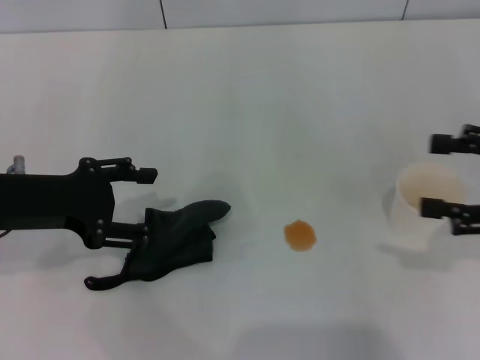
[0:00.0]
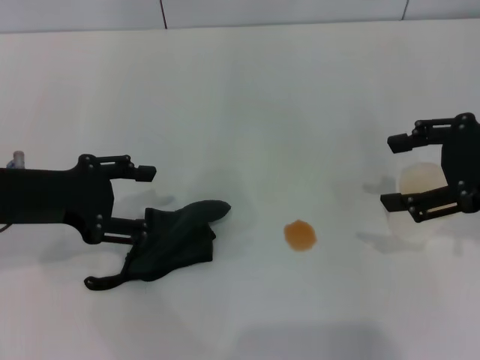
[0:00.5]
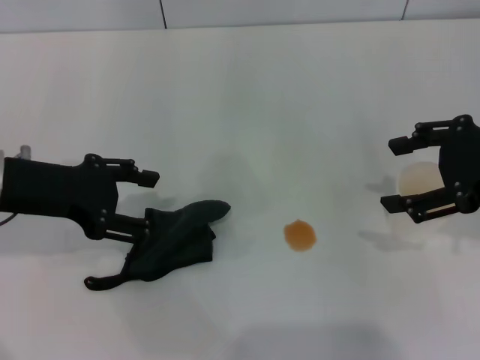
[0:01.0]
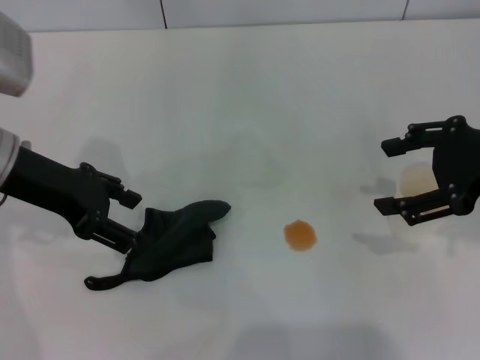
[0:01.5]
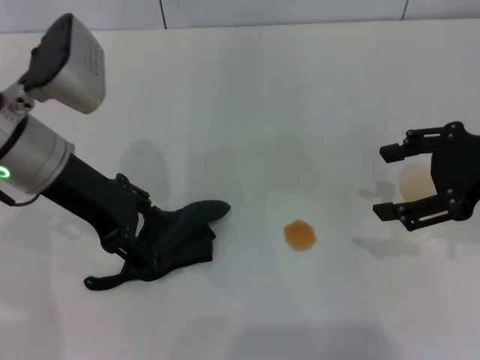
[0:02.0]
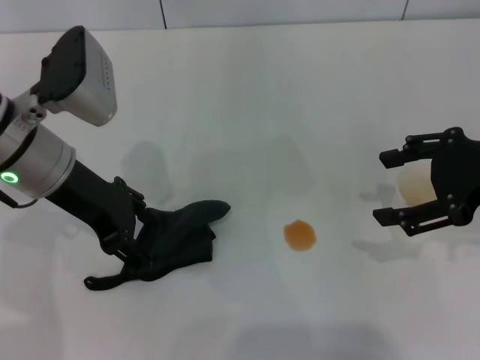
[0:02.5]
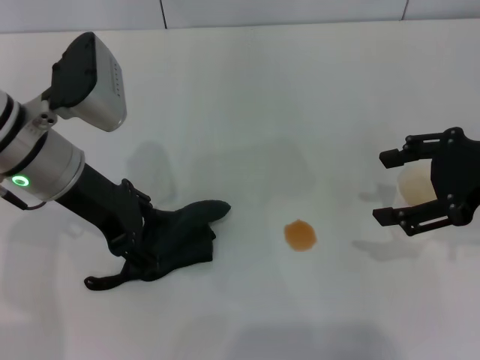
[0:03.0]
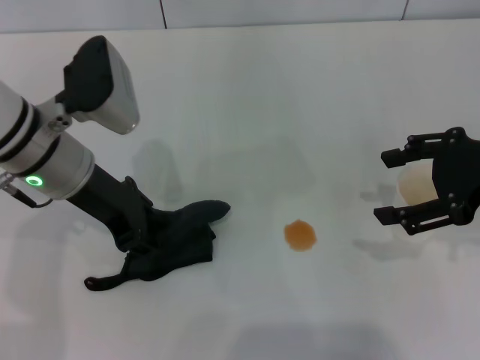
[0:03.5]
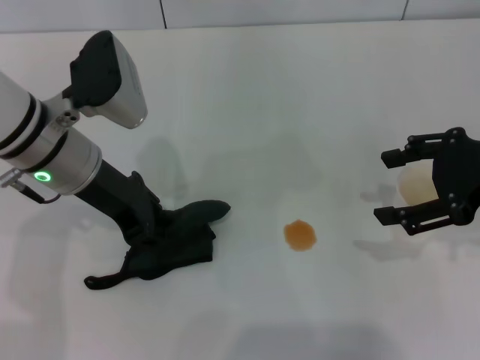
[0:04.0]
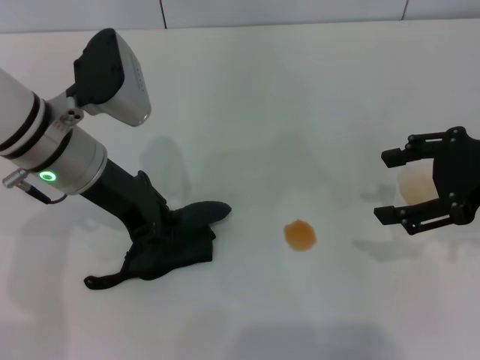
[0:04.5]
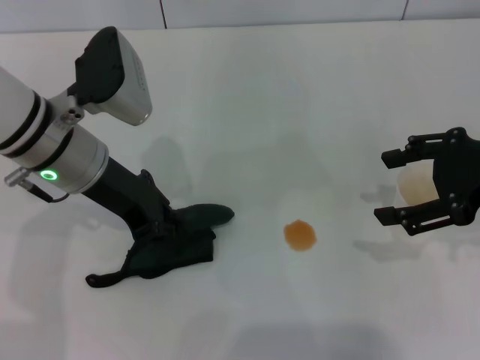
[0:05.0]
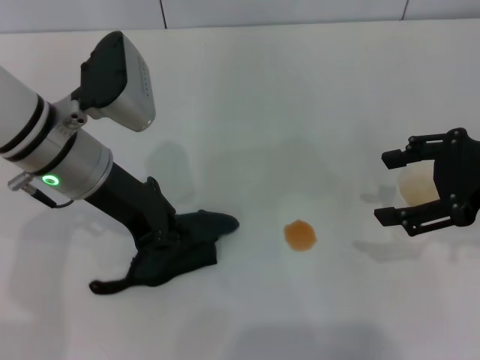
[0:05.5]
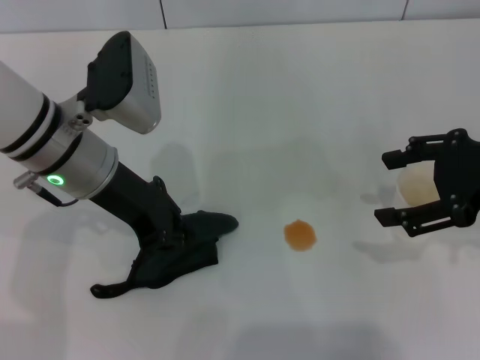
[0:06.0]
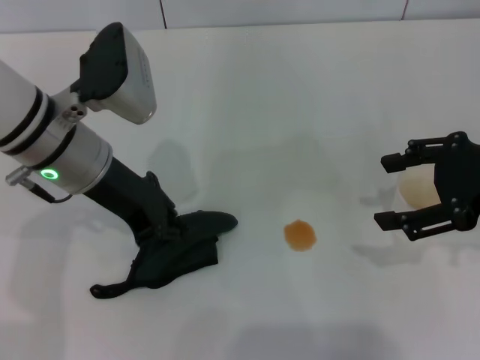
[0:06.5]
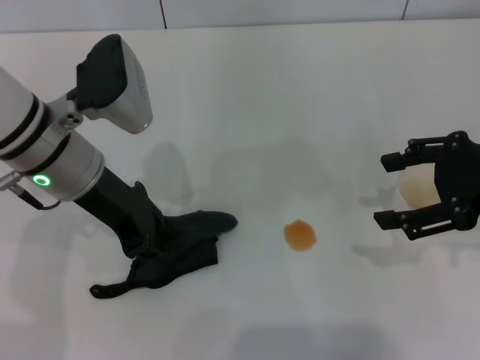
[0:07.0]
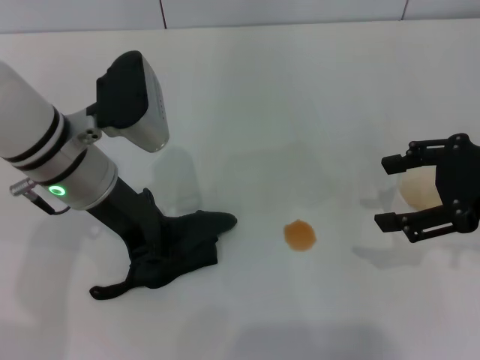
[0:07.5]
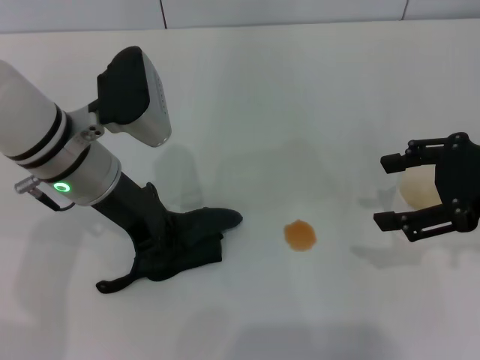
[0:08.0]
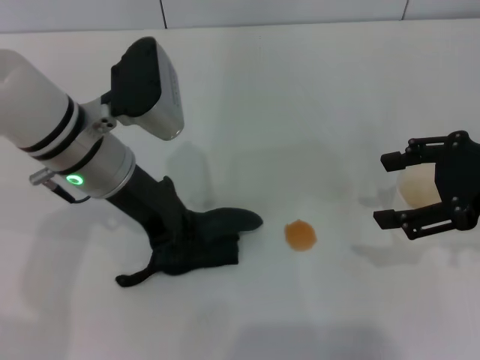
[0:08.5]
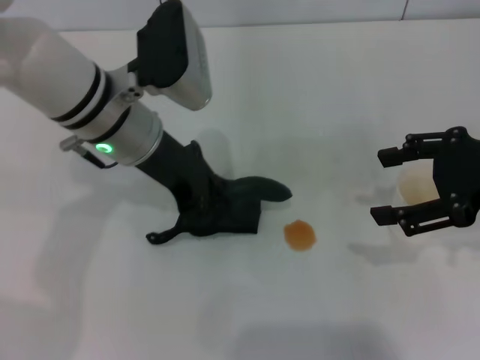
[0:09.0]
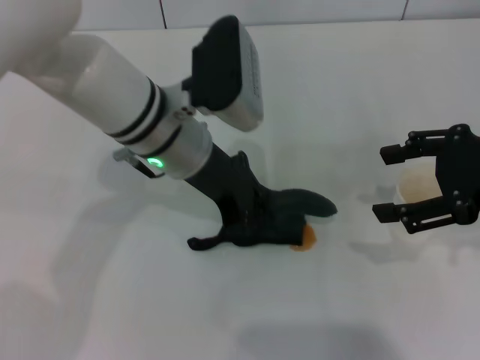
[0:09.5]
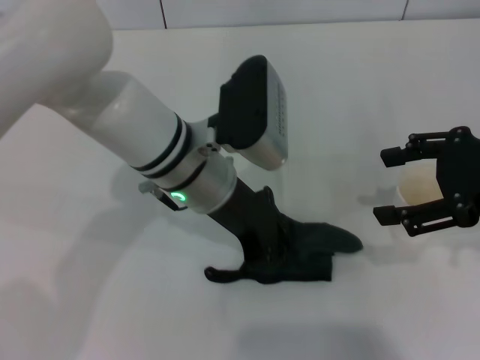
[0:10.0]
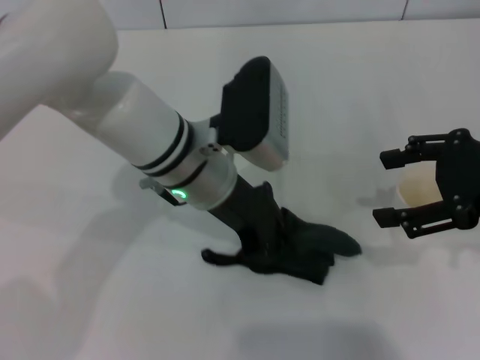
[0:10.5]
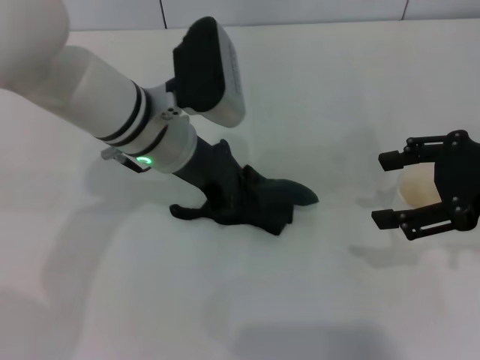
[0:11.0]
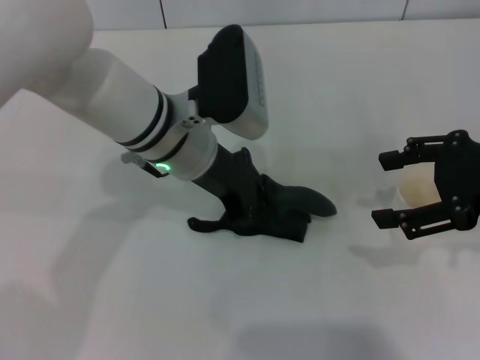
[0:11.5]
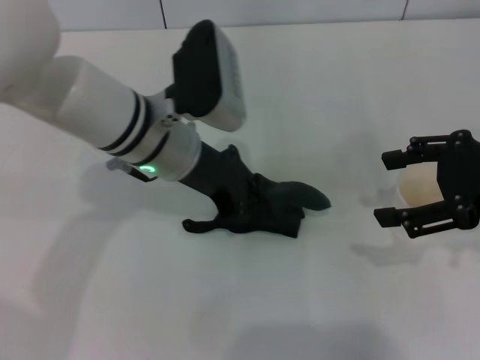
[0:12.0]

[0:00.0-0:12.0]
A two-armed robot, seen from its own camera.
Step, 0:00.0 to 0:05.0: Grasp the rag with the left gripper.
Step, 0:05.5 to 0:10.5: Wipe the stains off the table with the left gripper.
0:00.0 to 0:02.0: The left gripper shifts approximately 10 cm to the right and forward, while the right gripper shifts some 5 cm to the left.
0:02.0 to 0:04.0: The left gripper closes.
0:04.0 to 0:06.0: The left gripper closes its fingers.
0:06.0 to 0:08.0: There are only small adjustments of the grippers.
0:08.0 to 0:10.0: The left gripper goes approximately 10 cm to the right.

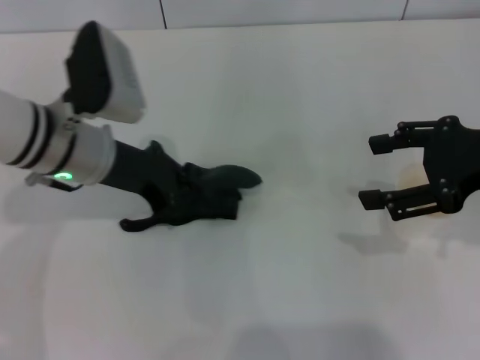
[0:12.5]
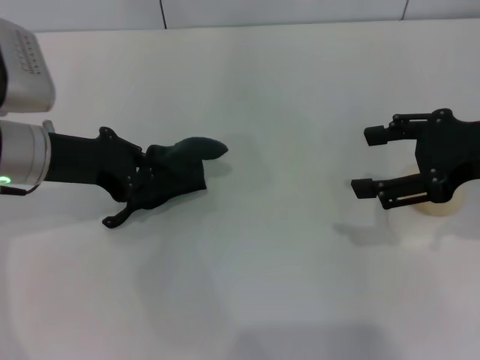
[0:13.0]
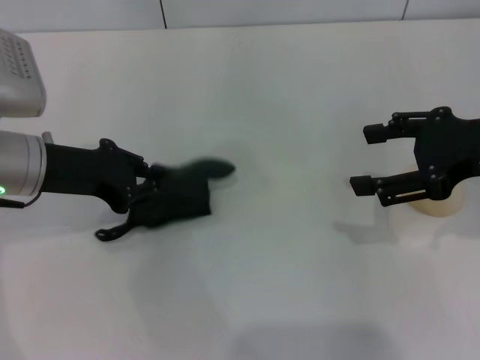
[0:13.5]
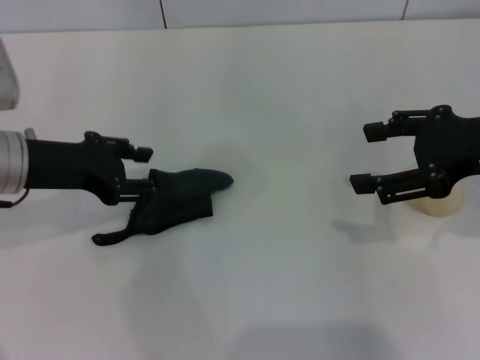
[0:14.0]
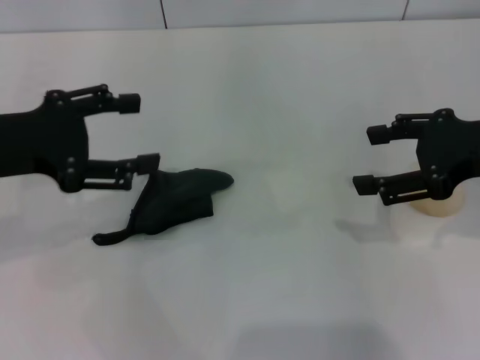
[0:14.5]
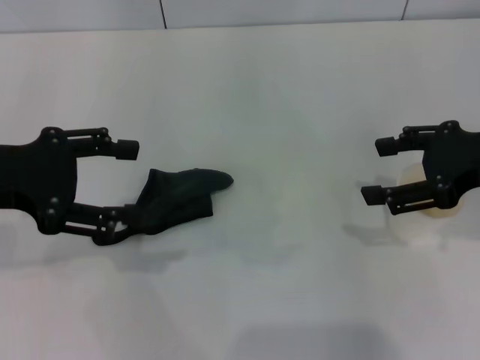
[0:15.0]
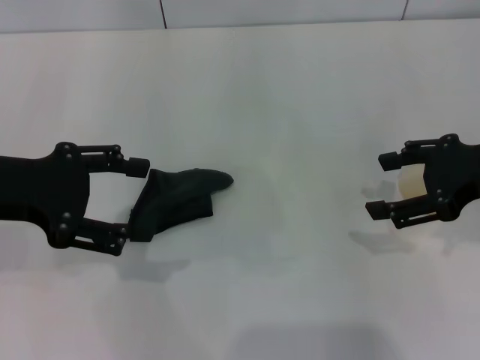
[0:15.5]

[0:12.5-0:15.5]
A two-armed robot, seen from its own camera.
0:12.5 to 0:14.0: The left gripper is displaced to the left by about 5 cm.
0:14.0 to 0:15.5: The left gripper moves approximately 5 cm, and opens its fingers.

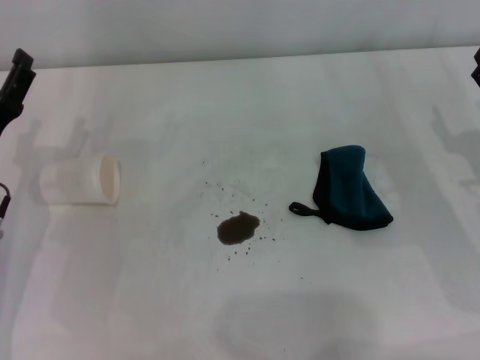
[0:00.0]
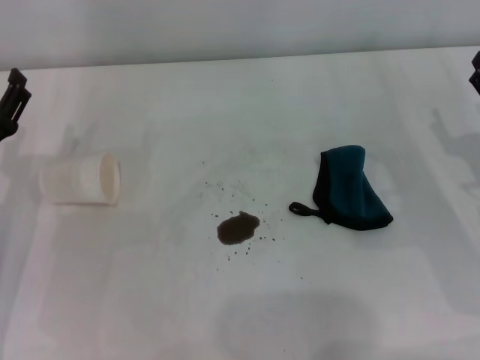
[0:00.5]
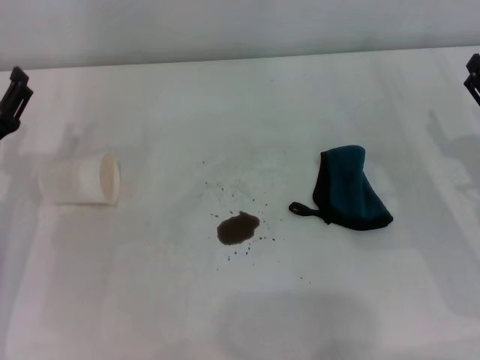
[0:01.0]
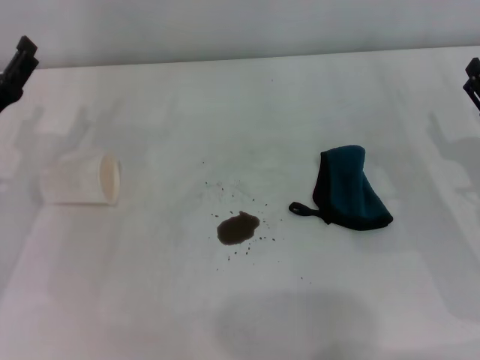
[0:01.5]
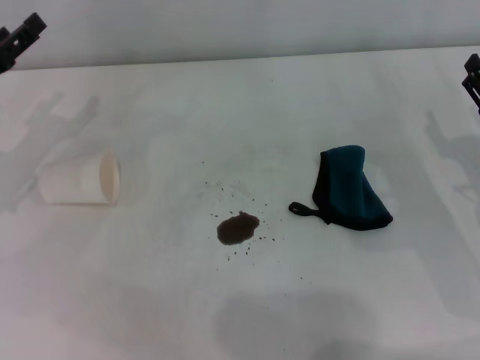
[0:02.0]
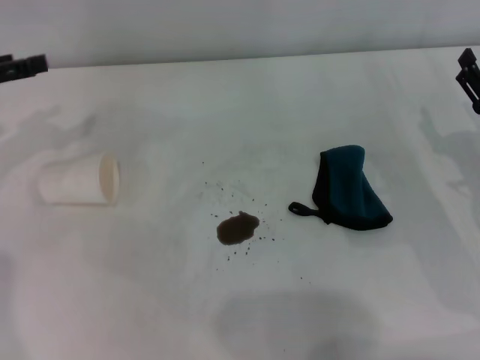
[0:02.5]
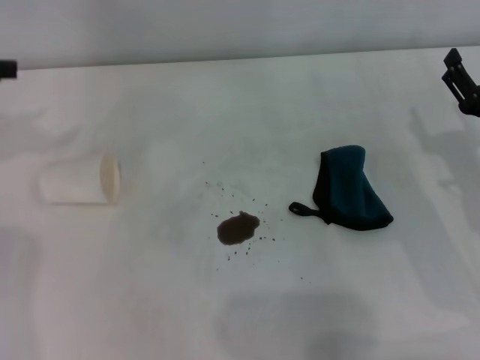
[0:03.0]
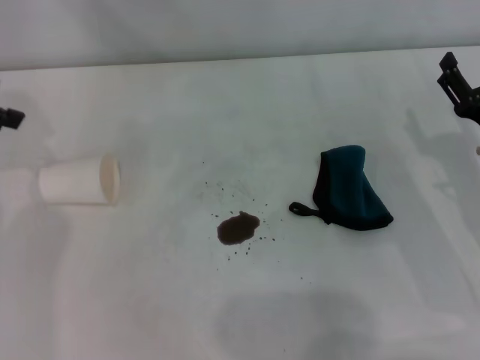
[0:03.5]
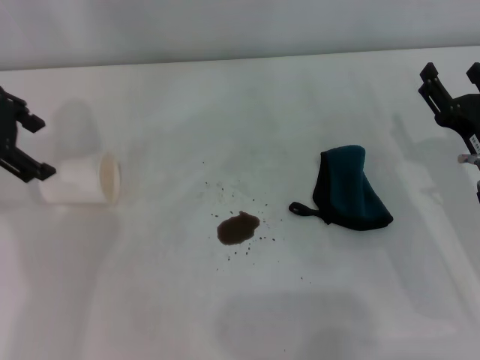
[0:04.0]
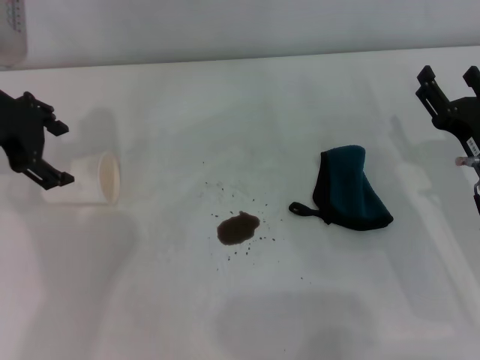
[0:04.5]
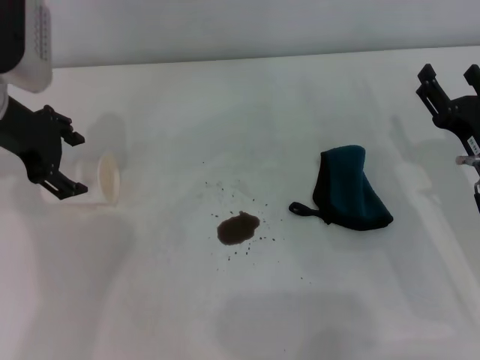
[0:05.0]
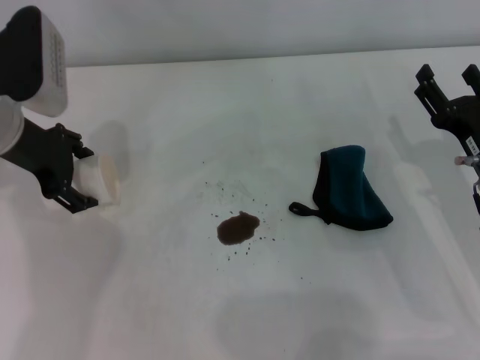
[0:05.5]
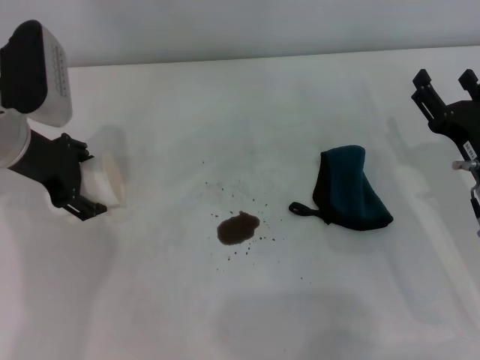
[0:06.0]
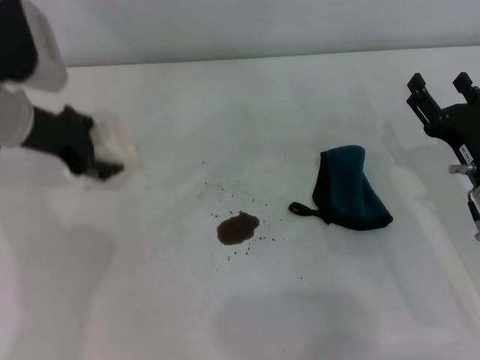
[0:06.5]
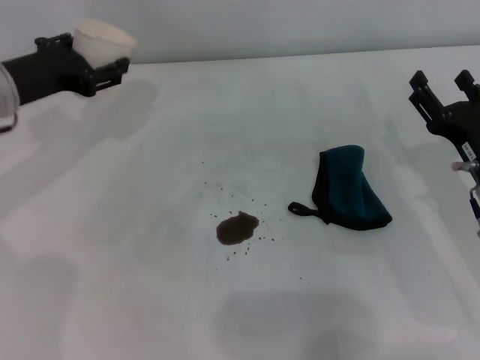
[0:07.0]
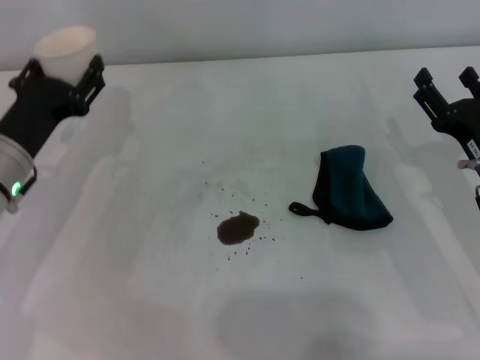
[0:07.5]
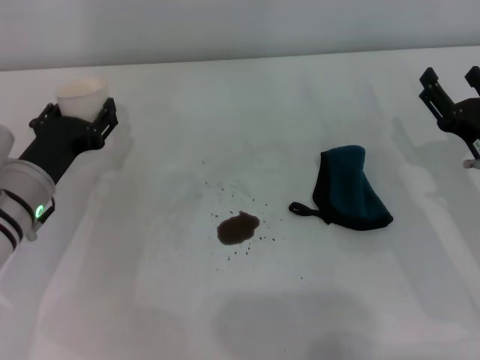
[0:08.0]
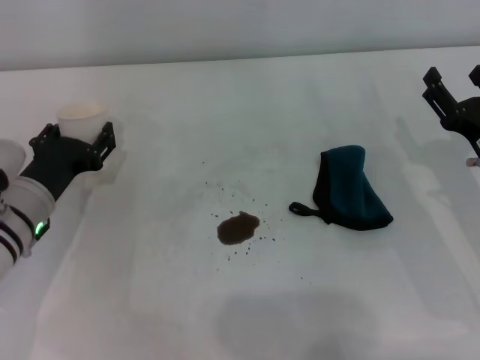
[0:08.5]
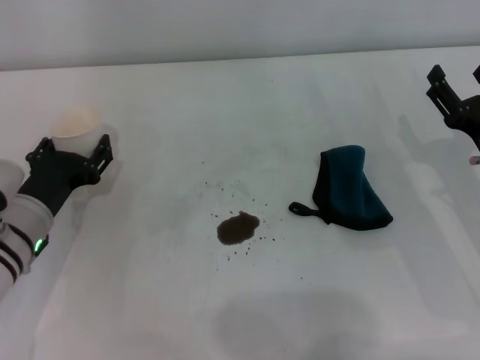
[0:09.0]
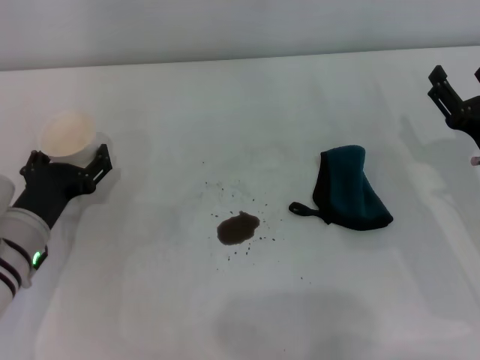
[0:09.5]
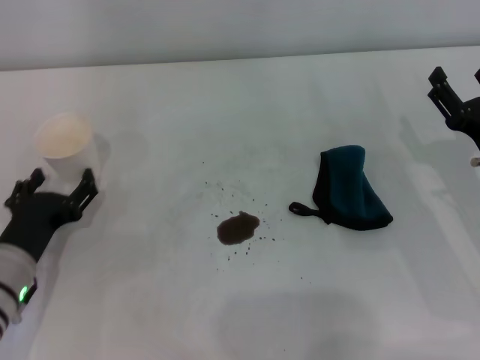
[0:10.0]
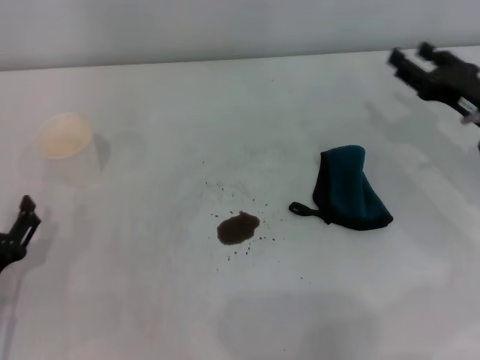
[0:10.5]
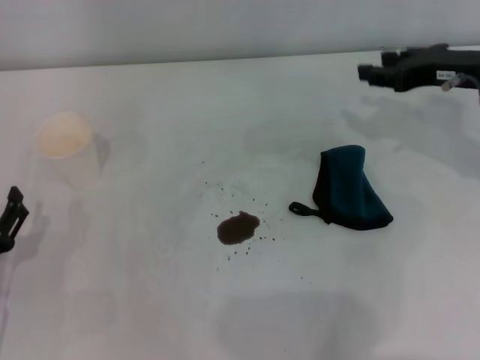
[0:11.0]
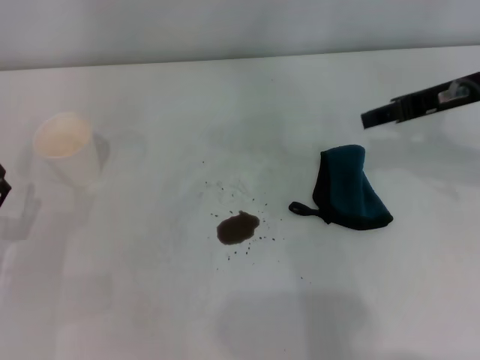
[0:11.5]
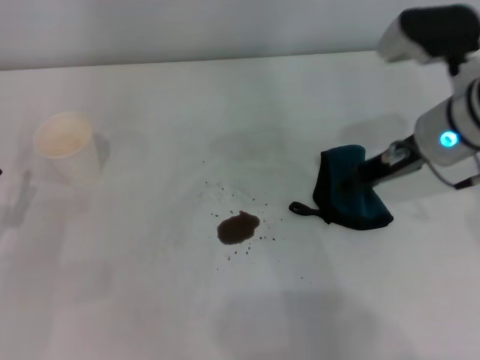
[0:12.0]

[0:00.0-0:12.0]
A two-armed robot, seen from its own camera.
Step, 0:00.0 to 0:05.5: Grasp the paper cup with the left gripper.
Step, 0:06.0 to 0:09.0: Stand the paper cup upright with the left gripper.
0:00.0 to 0:02.0: The left gripper moves forward, roughly 5 cm.
0:02.0 to 0:04.0: The left gripper heads upward, covering about 15 cm.
0:04.0 to 0:06.0: The left gripper goes approximately 10 cm downward.
0:06.0 to 0:08.0: The left gripper shifts about 10 cm downward and backward, and closes up.
0:08.0 to 0:10.0: The left gripper shifts about 10 cm backward, and opens its fingers.
0:10.0 to 0:12.0: The left gripper shifts approximately 5 cm to the left; the right gripper moves upward, to the left and forward, some 15 cm.
